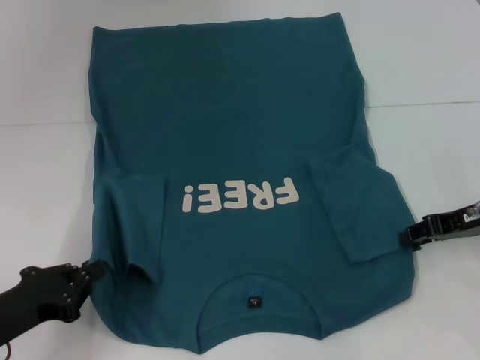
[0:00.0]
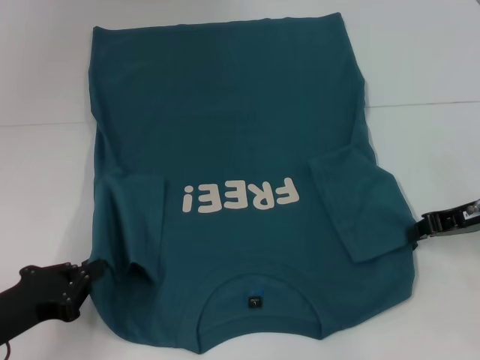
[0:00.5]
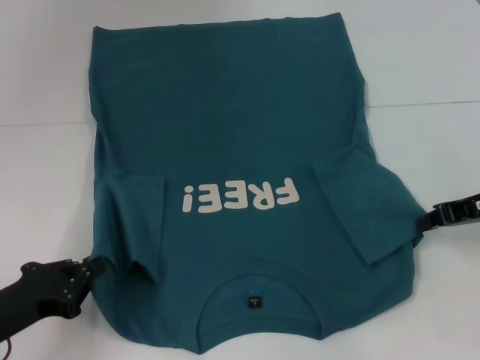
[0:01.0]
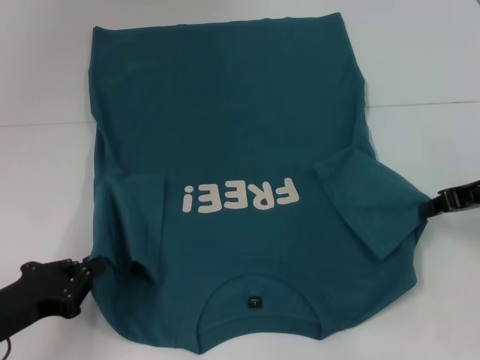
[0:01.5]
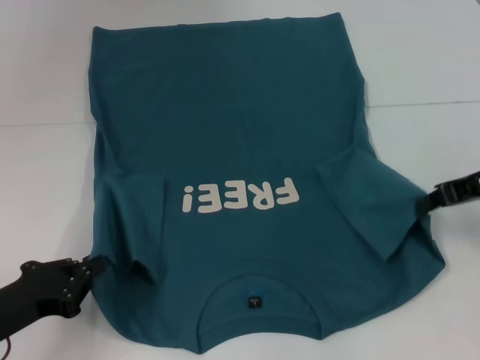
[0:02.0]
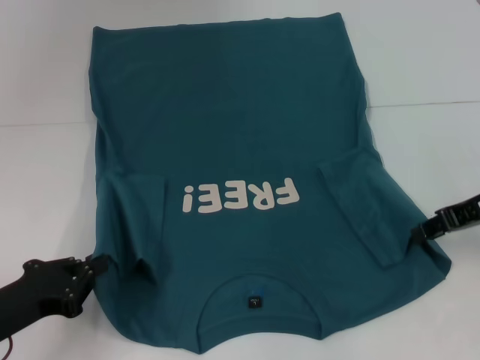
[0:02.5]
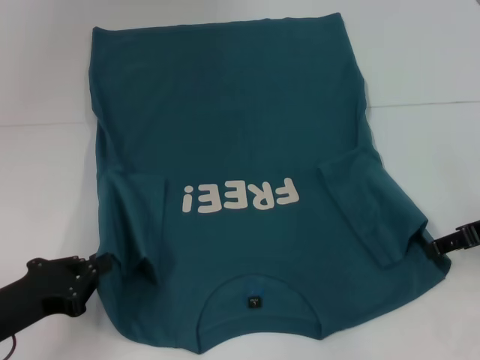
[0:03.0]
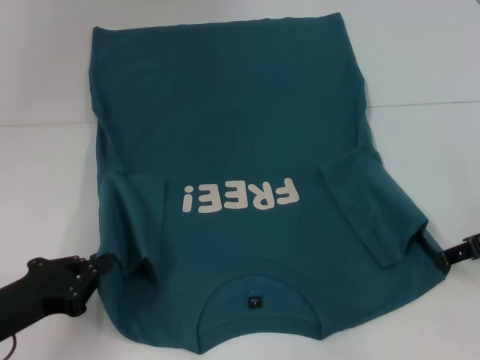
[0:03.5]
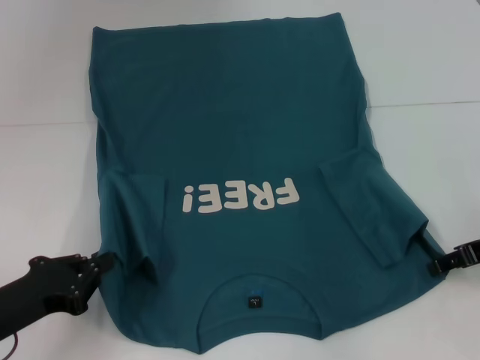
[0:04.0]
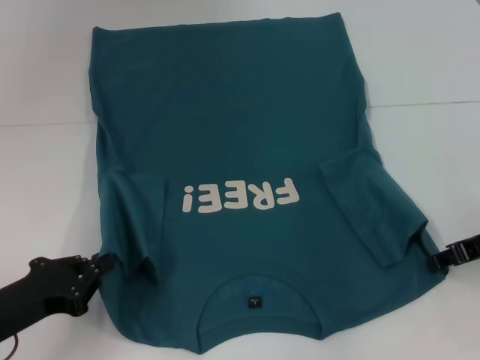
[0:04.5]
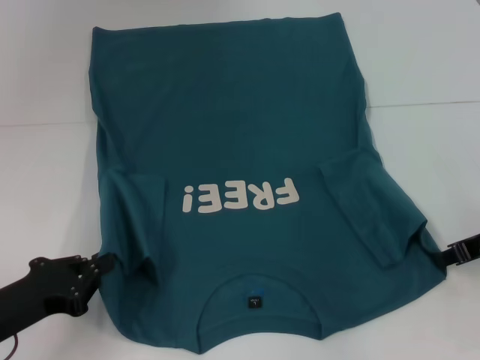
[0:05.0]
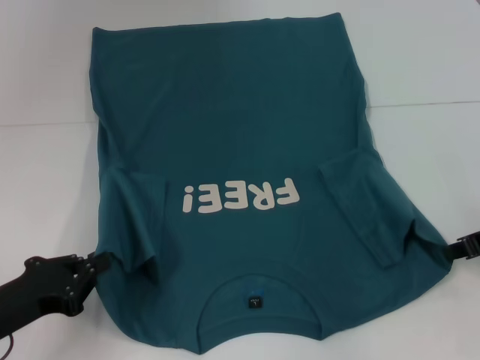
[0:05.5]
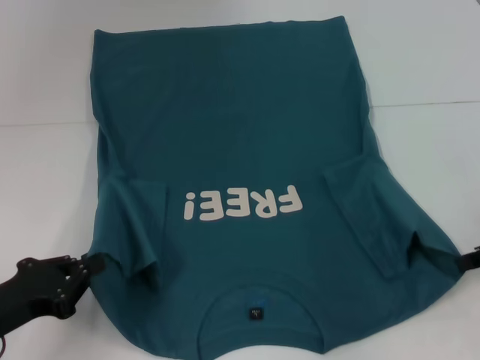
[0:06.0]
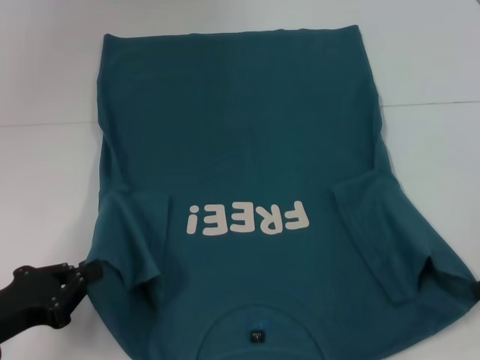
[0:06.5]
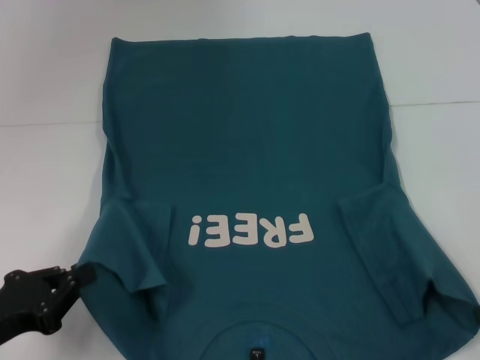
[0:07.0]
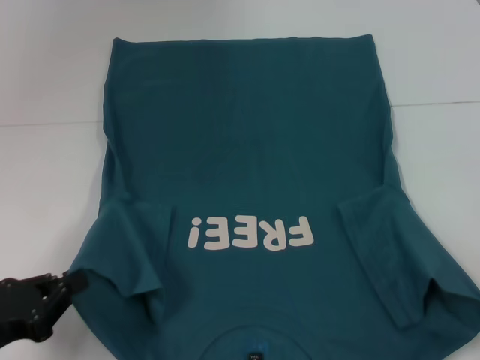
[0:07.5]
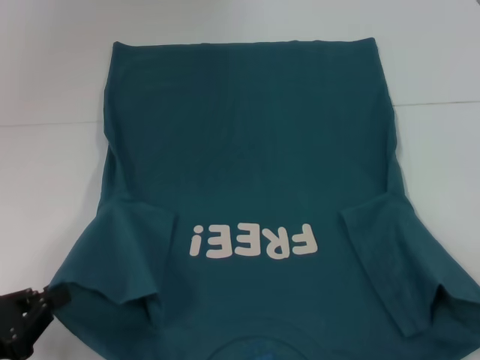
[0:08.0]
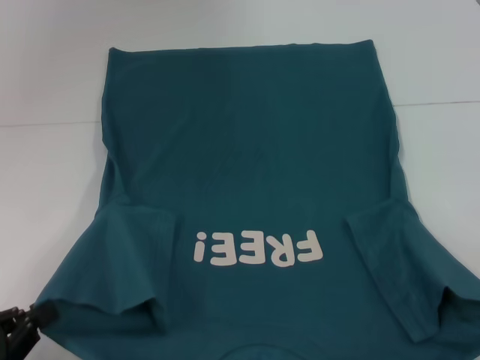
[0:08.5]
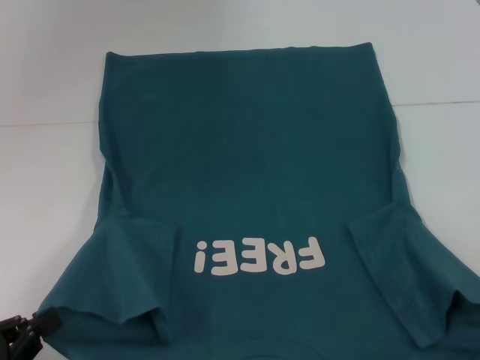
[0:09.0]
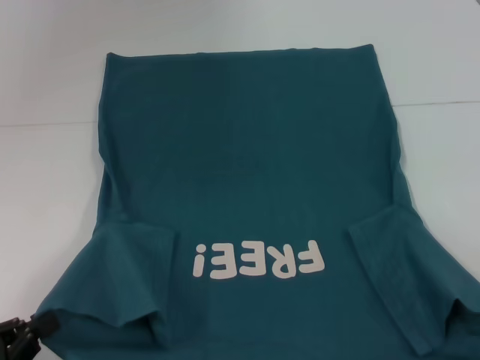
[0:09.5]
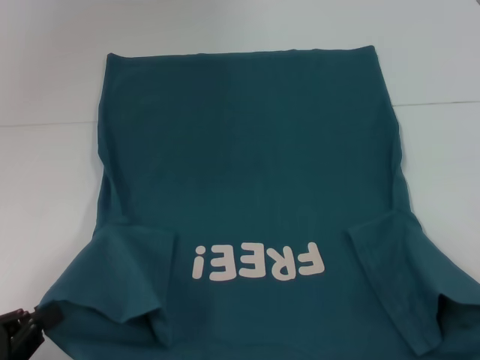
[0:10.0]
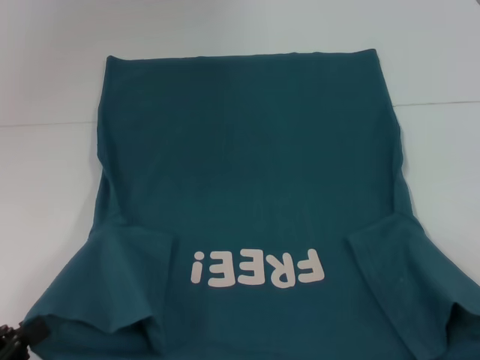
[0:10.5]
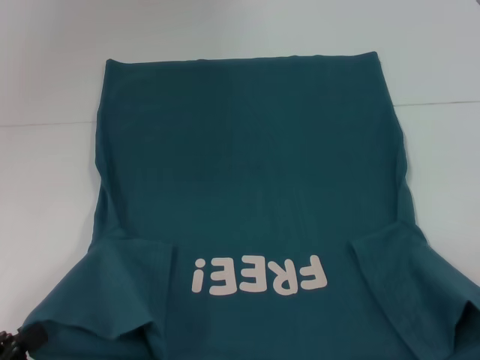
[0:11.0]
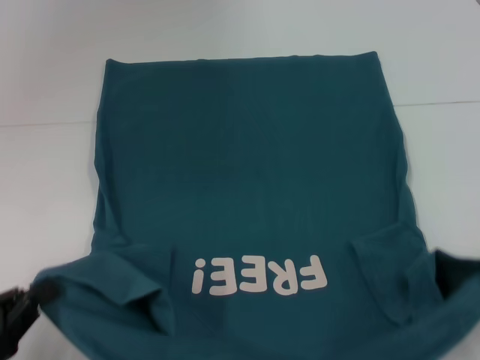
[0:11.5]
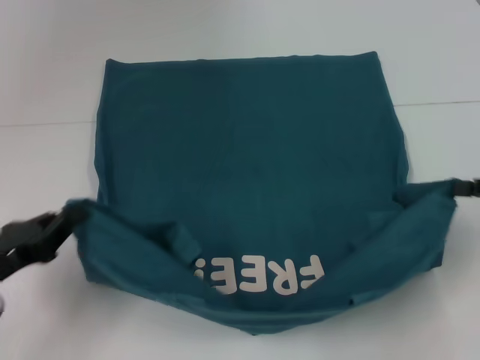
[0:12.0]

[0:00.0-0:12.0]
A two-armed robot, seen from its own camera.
0:00.0 to 0:02.0: The right gripper moves upward, about 5 cm, and closes.
0:02.0 to 0:04.0: The right gripper ends up about 5 cm from where it was, and opens up.
0:04.0 to 0:06.0: The right gripper closes its fingers.
0:06.0 to 0:08.0: The left gripper is displaced backward by roughly 5 cm, while the right gripper is displaced backward and to the right by approximately 10 cm.
0:08.0 to 0:10.0: The grippers stay close to where they were, moving slightly.
0:10.0 to 0:12.0: The two grippers go roughly 10 cm forward.

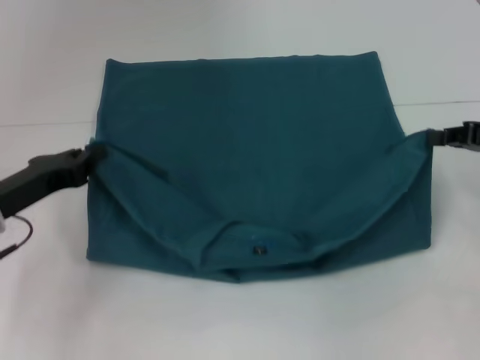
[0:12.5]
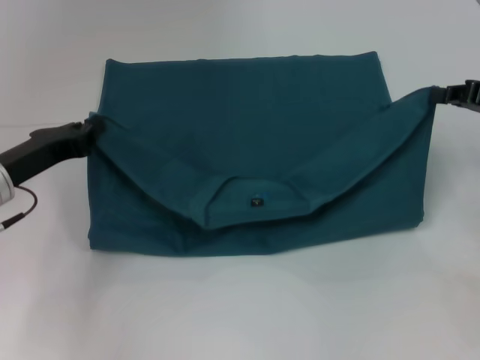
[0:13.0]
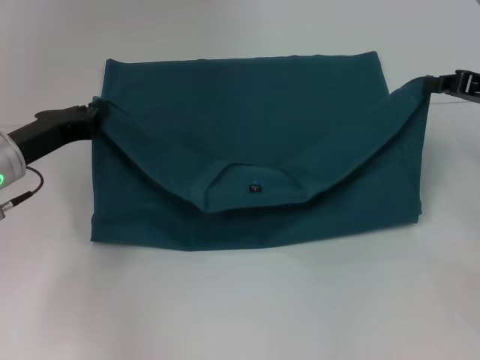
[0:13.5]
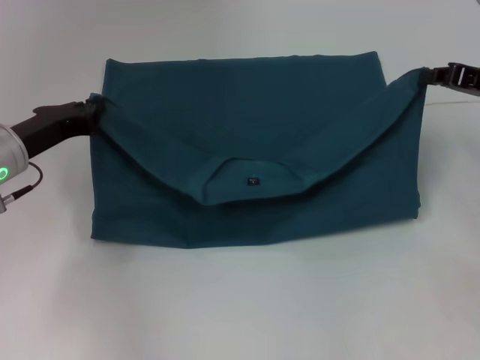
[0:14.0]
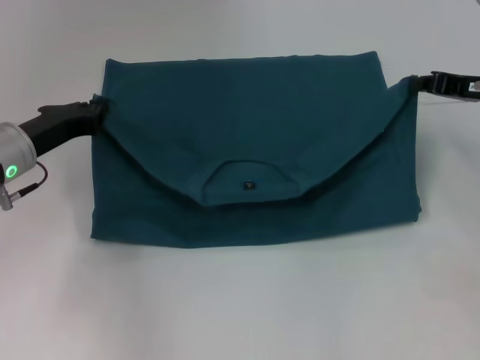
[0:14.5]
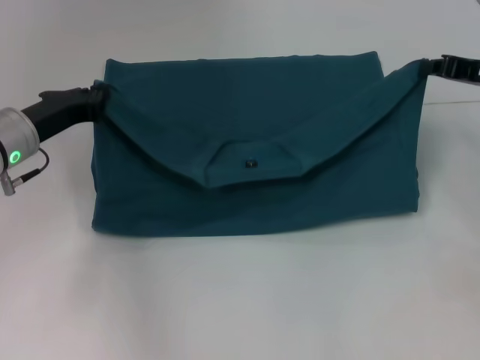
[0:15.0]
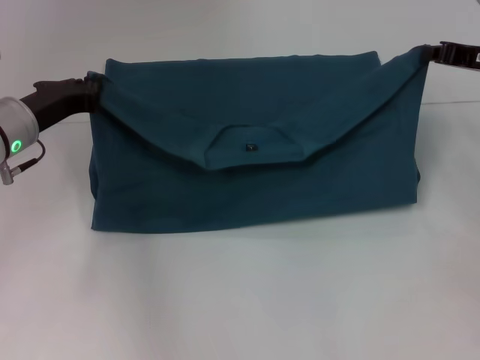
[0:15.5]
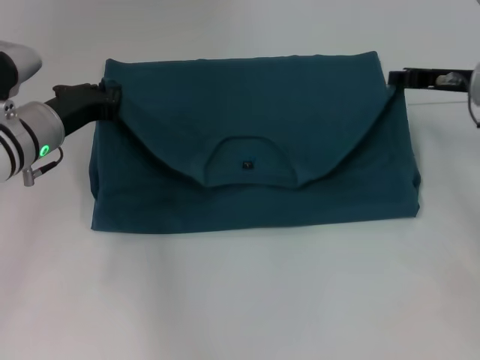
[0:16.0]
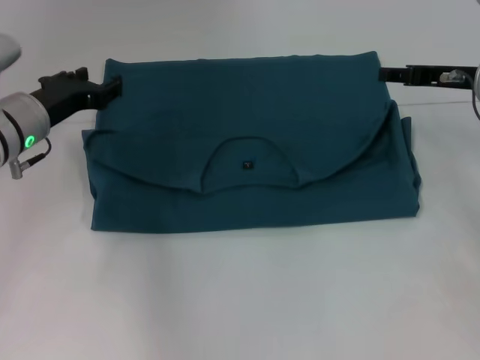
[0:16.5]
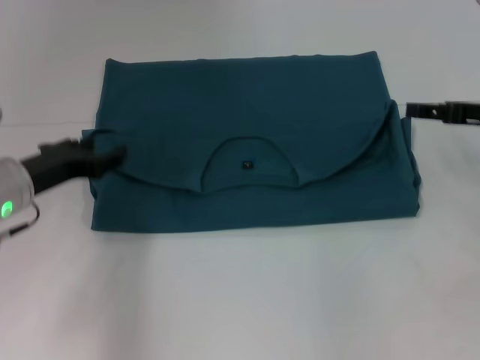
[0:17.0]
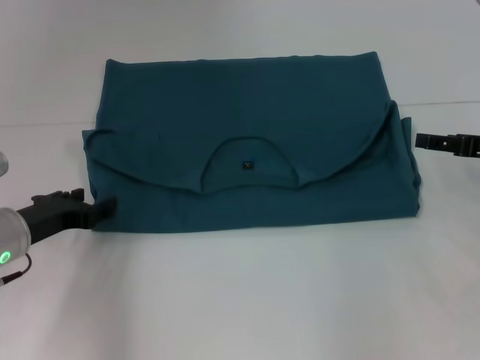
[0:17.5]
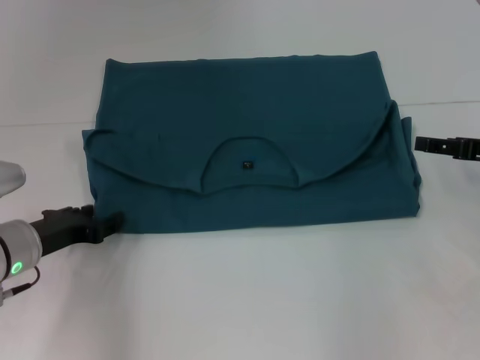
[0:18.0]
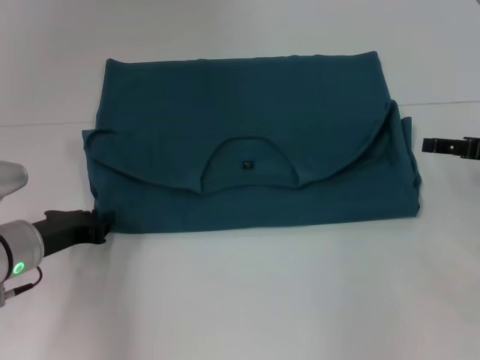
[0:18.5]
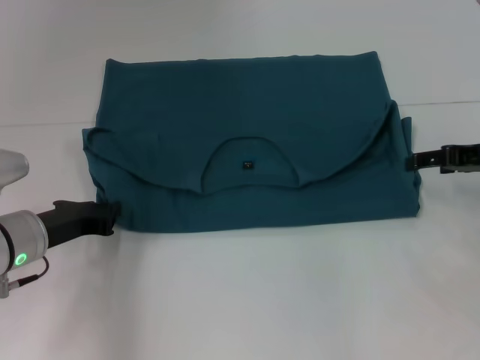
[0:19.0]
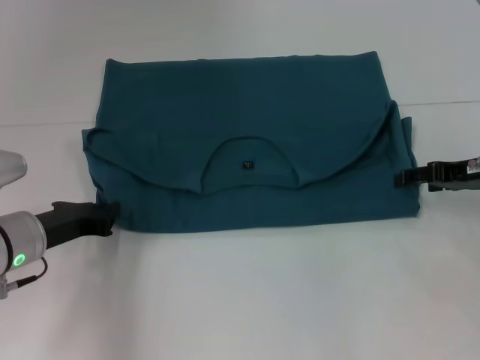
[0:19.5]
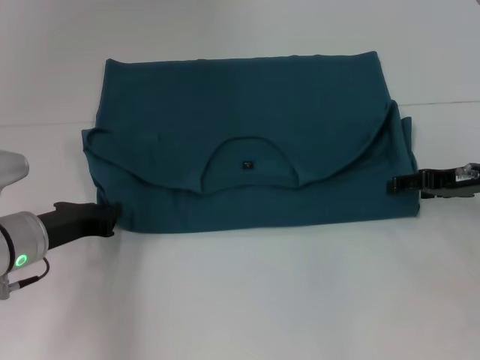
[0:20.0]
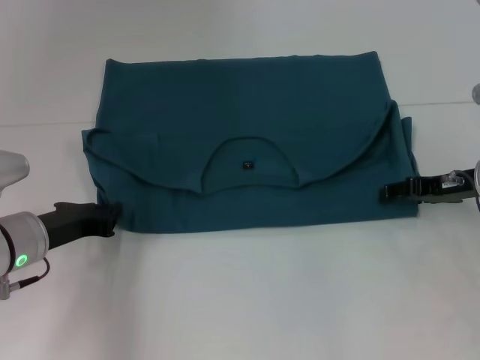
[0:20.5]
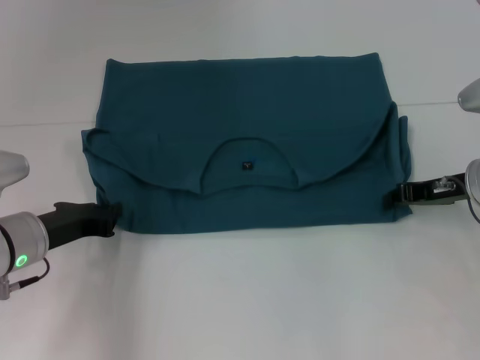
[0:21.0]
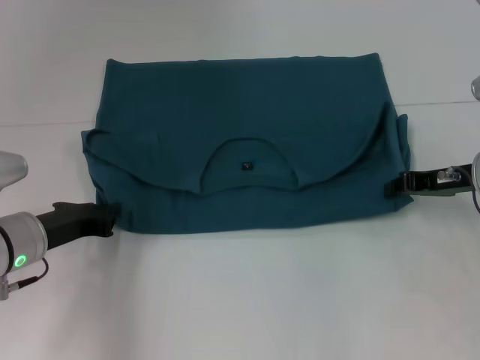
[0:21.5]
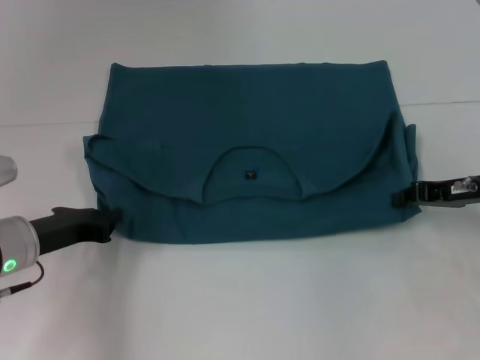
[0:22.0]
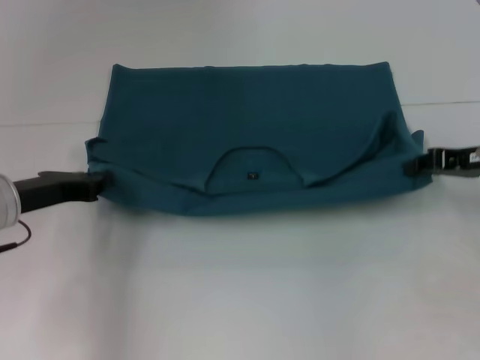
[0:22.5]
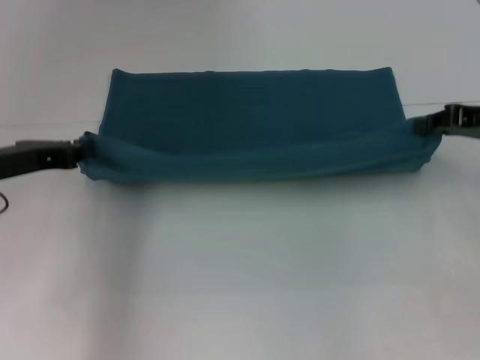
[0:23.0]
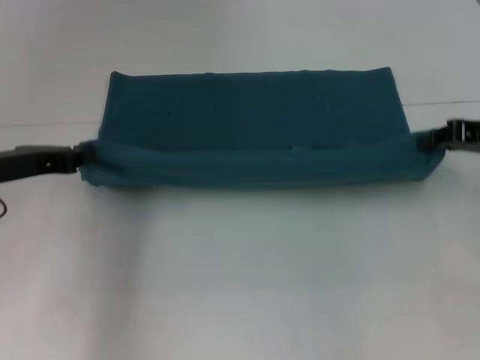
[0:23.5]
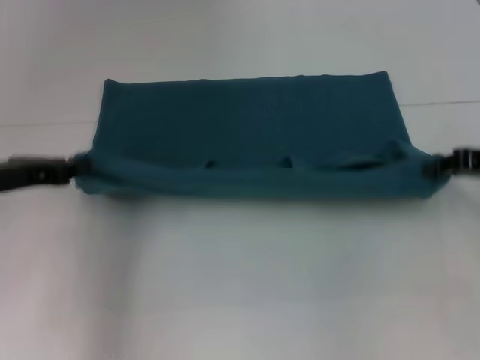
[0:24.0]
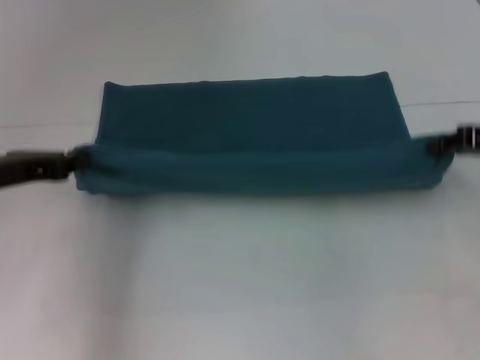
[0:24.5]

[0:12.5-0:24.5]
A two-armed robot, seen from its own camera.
Step, 0:12.5 to 0:16.5: Fold the clothes to the left.
Step, 0:12.5 to 0:16.5: Fold the clothes to the right.
0:12.5 to 0:14.5: The grippers both shift forward by roughly 5 cm.
0:14.5 to 0:16.5: The right gripper opens up; the left gripper opens up.
0:16.5 to 0:18.5: The left gripper moves backward and downward, some 10 cm, while the right gripper heads backward and to the right, covering approximately 10 cm, and opens its fingers.
0:18.5 to 0:20.5: The left gripper closes; the right gripper goes roughly 5 cm to the left.
0:20.5 to 0:22.5: The right gripper moves roughly 5 cm, and closes; the left gripper shifts by about 5 cm.
0:22.5 to 0:24.5: The left gripper ends up approximately 5 cm from where it was.

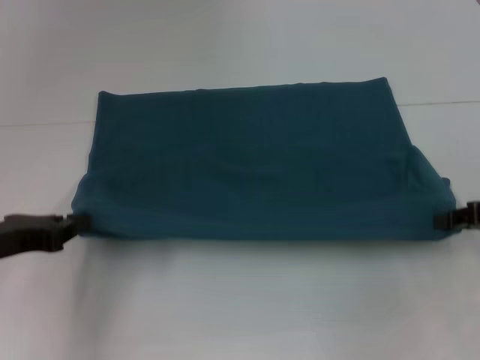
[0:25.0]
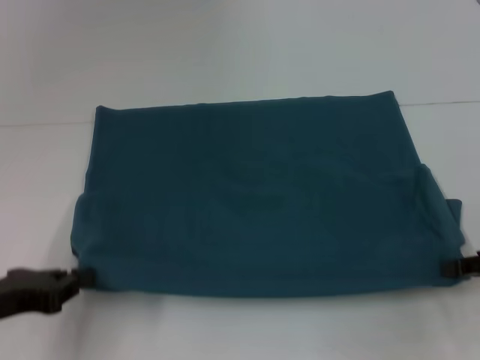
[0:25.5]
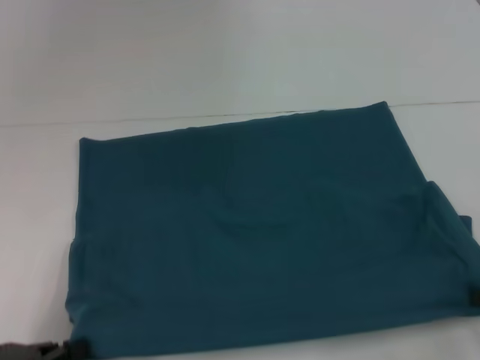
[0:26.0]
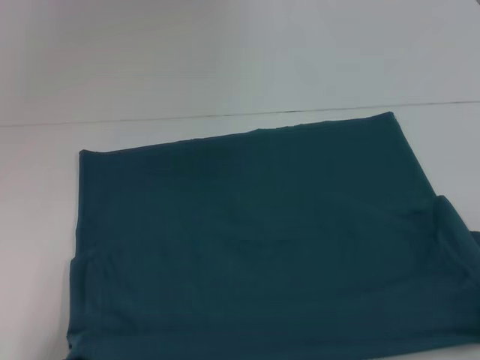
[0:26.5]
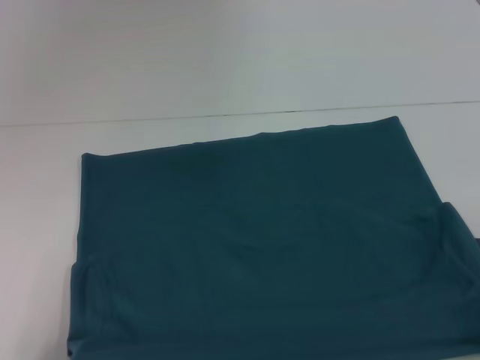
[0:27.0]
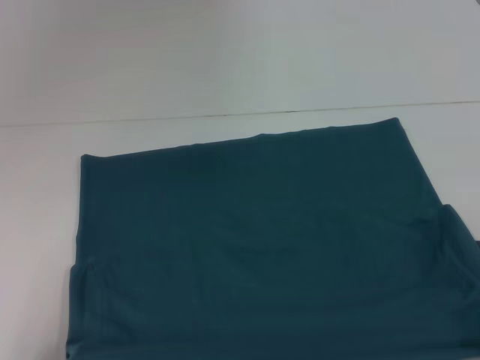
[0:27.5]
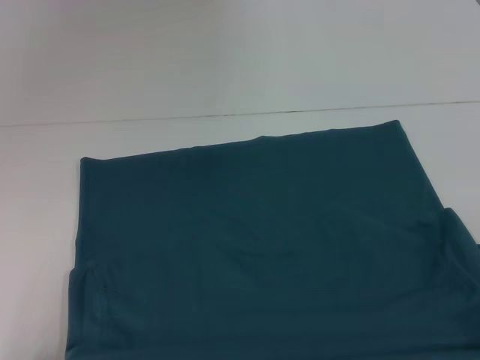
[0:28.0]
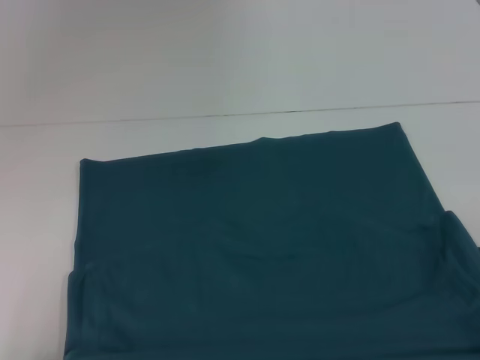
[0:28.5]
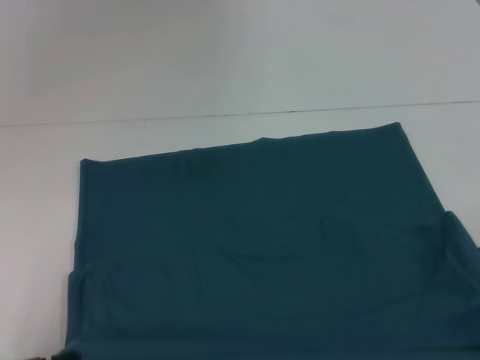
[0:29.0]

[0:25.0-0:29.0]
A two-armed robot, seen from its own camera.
Step, 0:25.0 to 0:28.0: Pull the clothes with your left hand.
Step, 0:25.0 to 0:28.0: Pull the clothes with your right hand.
0:25.0 to 0:27.0: Both grippers move backward, roughly 10 cm.
0:27.0 to 0:29.0: The grippers stay close to where they were, moving slightly.
